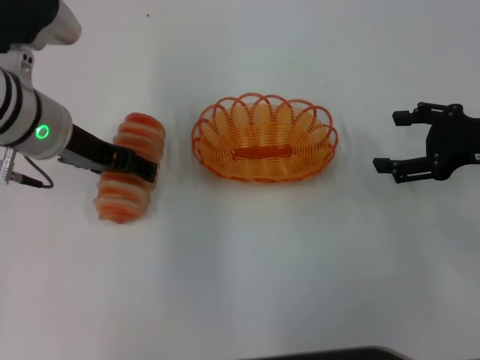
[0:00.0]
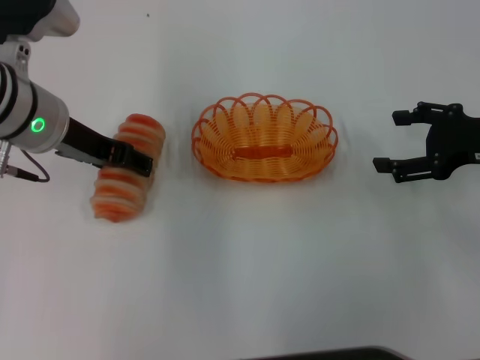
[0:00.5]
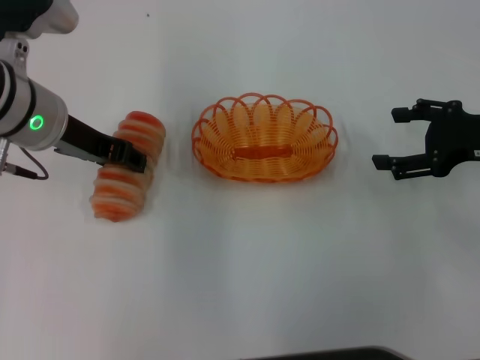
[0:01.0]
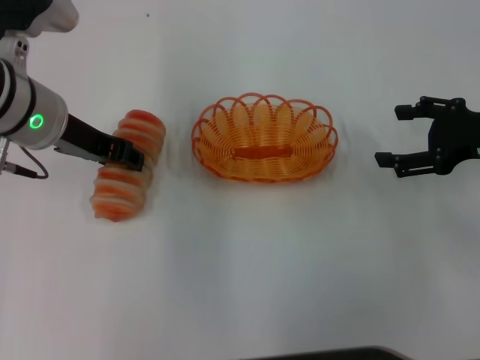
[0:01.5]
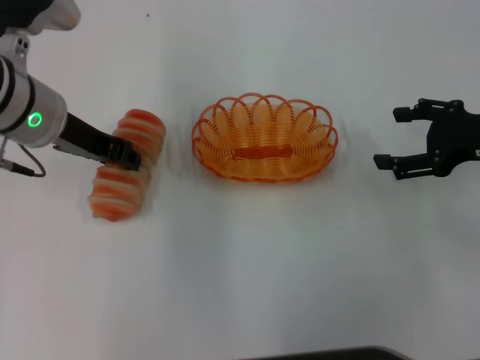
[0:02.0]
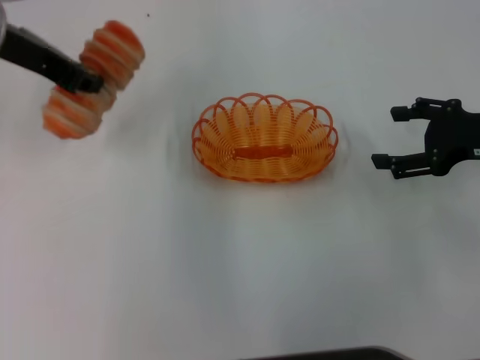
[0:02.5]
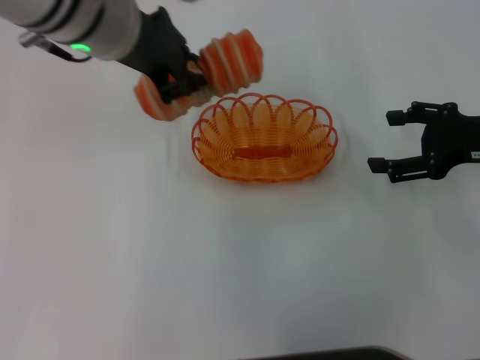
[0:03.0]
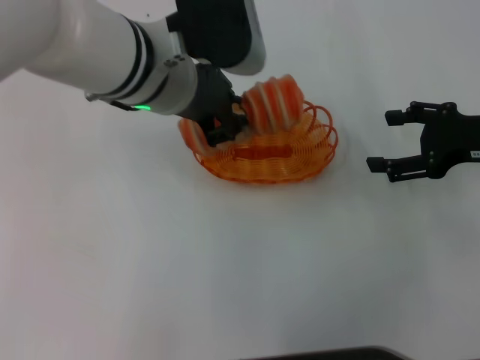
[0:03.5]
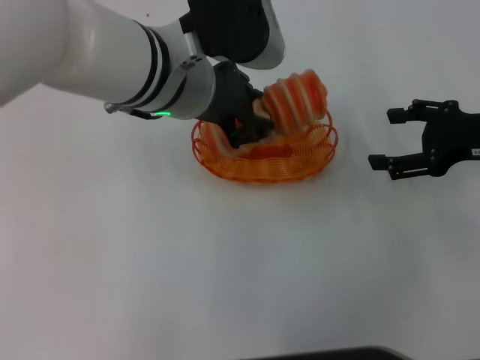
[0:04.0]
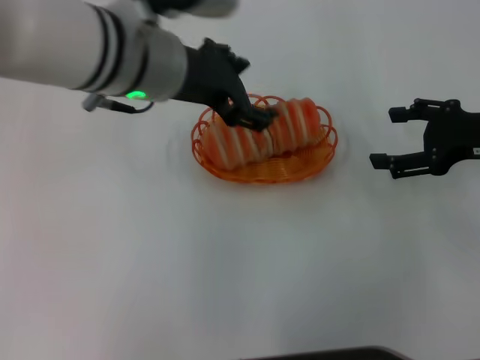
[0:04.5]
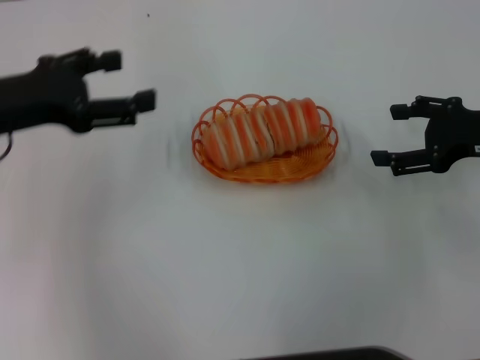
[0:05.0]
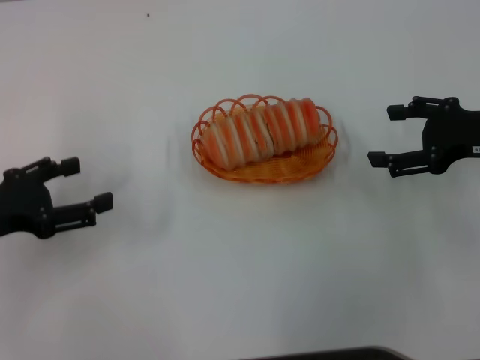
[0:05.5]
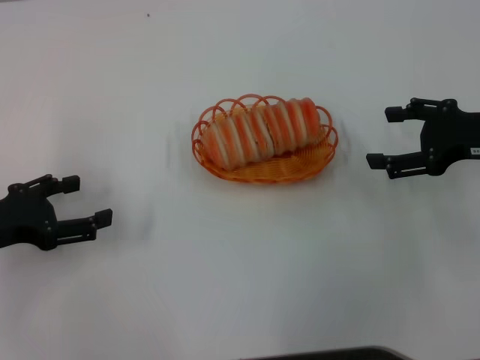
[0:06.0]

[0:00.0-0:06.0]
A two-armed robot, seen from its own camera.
Step, 0:00.0 to 0:02.0: Pick up the long bread with the left gripper.
Step, 0:02.5 to 0:04.5: Place the long bread into the basket with the left gripper.
0:00.0 to 0:02.0: The left gripper closes.
0:02.0 to 0:04.0: The left gripper travels to the right by about 10 cm.
0:04.0 to 0:06.0: The left gripper shifts some 30 cm to the left and downward, and opens up.
